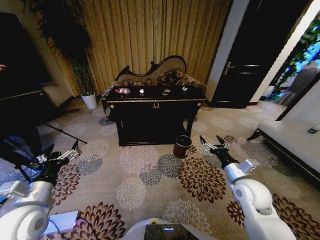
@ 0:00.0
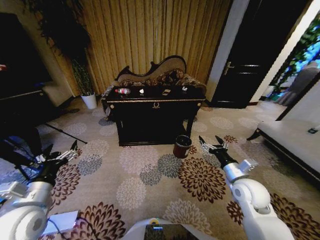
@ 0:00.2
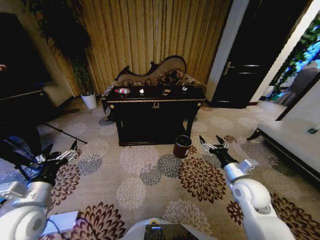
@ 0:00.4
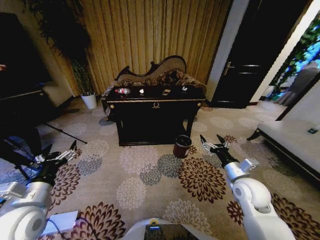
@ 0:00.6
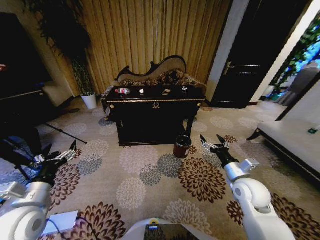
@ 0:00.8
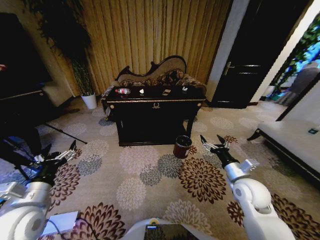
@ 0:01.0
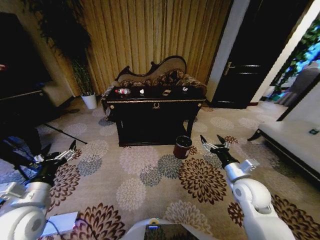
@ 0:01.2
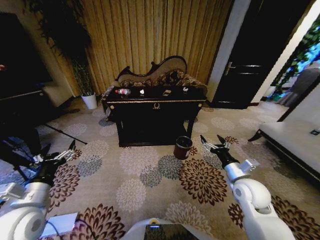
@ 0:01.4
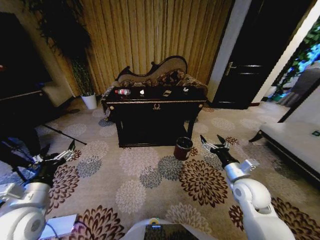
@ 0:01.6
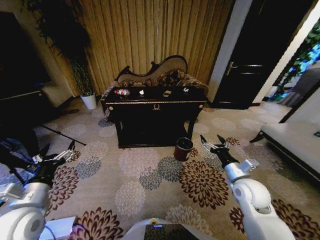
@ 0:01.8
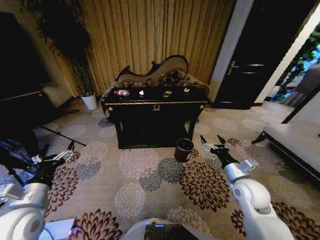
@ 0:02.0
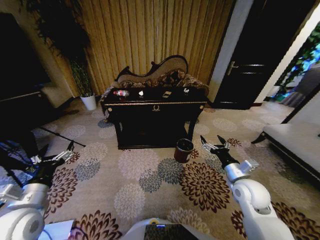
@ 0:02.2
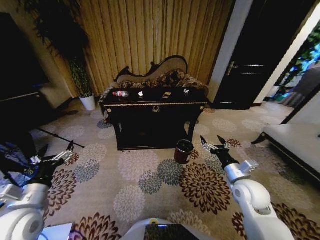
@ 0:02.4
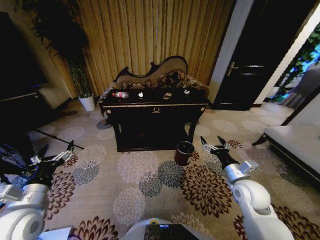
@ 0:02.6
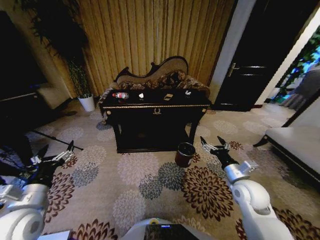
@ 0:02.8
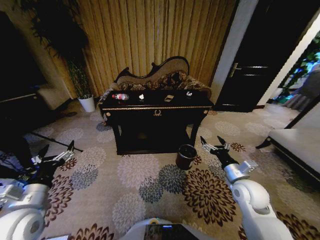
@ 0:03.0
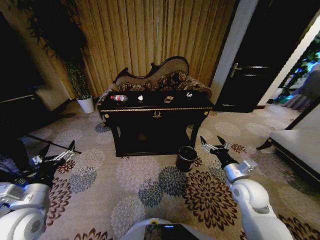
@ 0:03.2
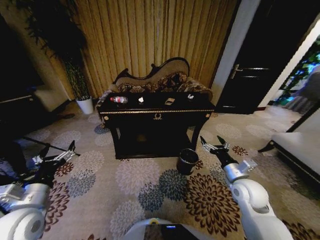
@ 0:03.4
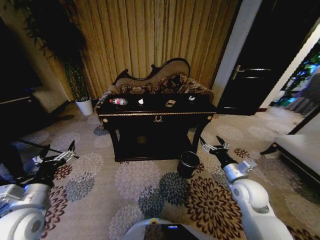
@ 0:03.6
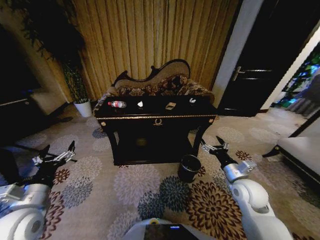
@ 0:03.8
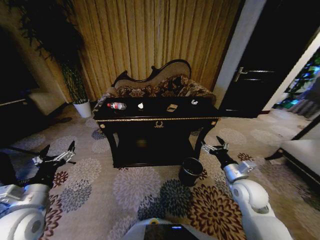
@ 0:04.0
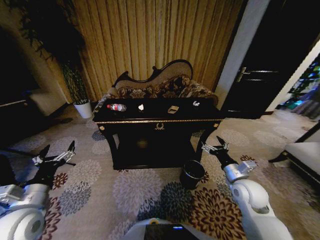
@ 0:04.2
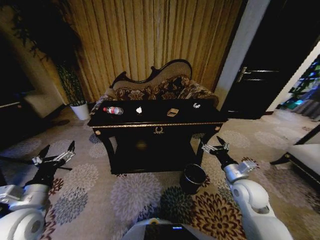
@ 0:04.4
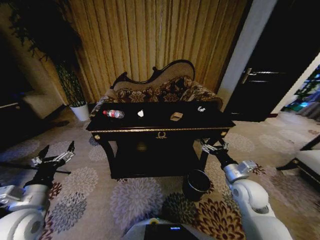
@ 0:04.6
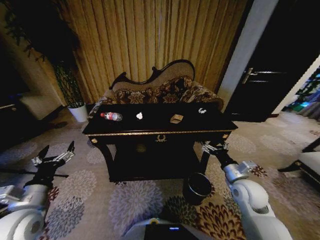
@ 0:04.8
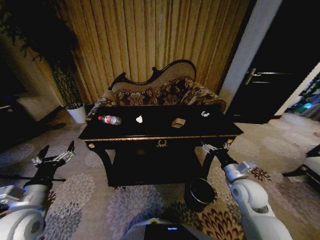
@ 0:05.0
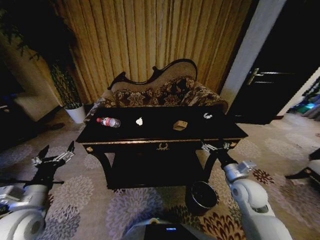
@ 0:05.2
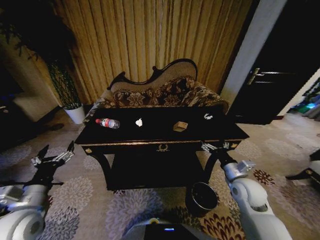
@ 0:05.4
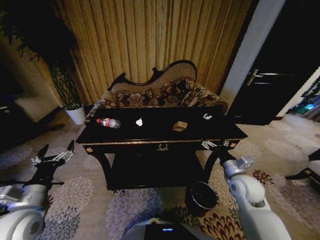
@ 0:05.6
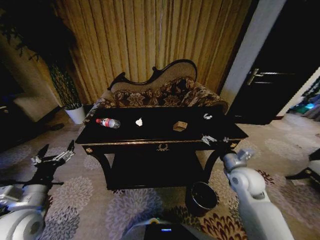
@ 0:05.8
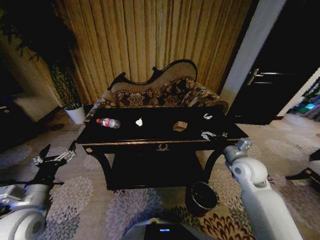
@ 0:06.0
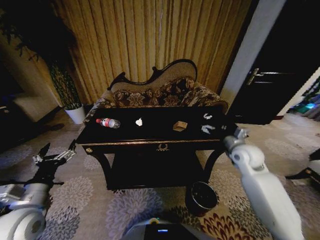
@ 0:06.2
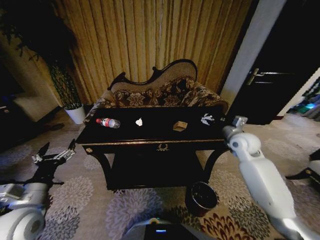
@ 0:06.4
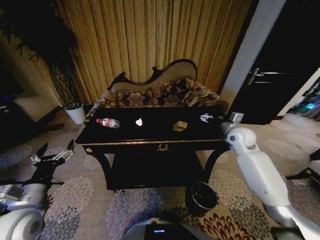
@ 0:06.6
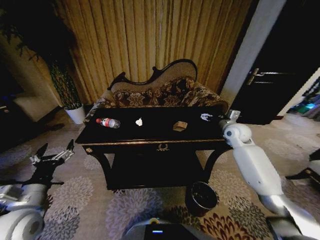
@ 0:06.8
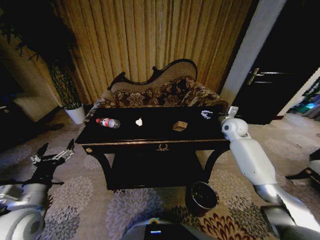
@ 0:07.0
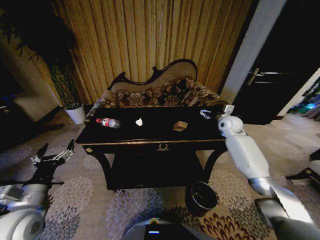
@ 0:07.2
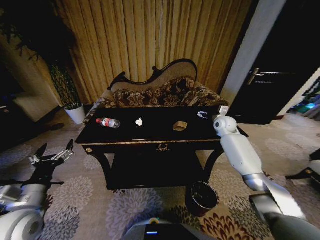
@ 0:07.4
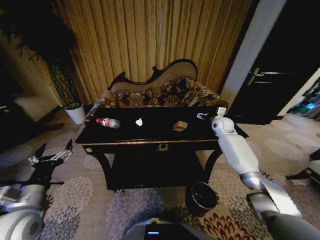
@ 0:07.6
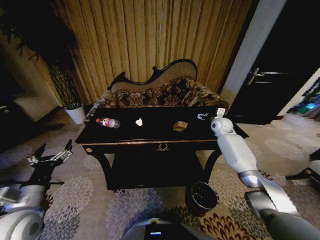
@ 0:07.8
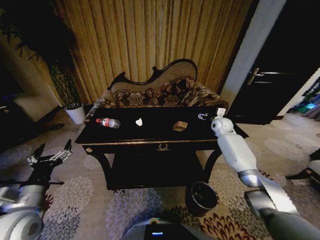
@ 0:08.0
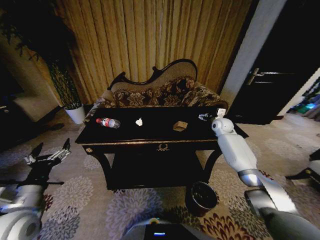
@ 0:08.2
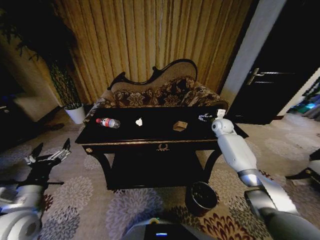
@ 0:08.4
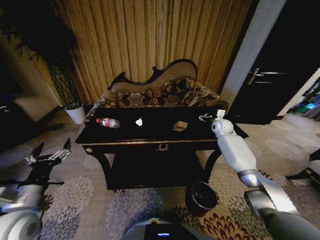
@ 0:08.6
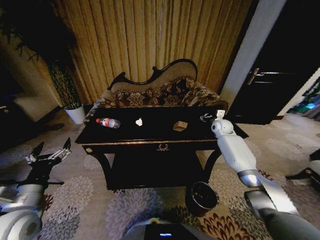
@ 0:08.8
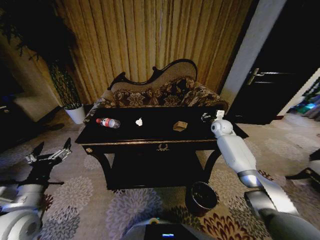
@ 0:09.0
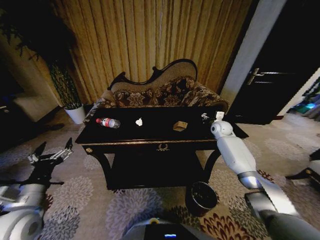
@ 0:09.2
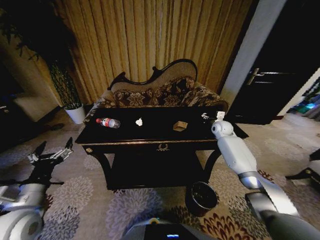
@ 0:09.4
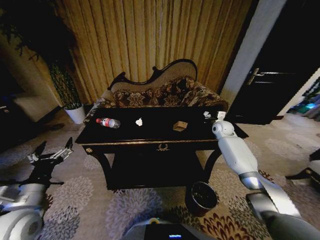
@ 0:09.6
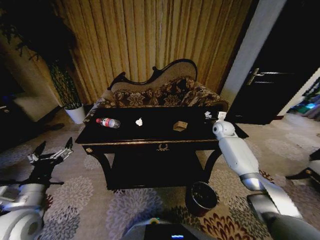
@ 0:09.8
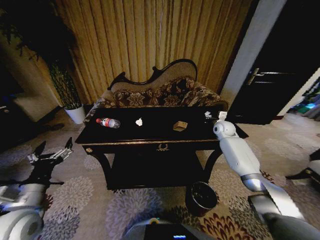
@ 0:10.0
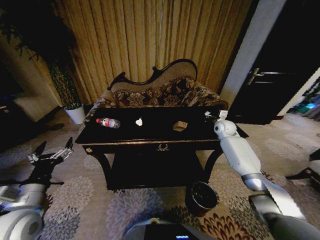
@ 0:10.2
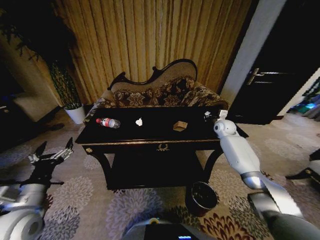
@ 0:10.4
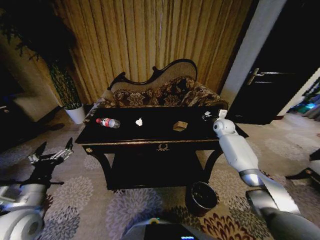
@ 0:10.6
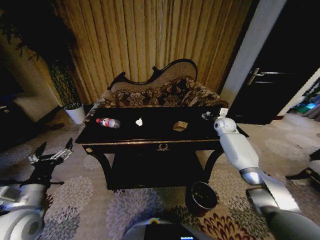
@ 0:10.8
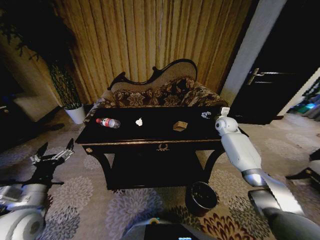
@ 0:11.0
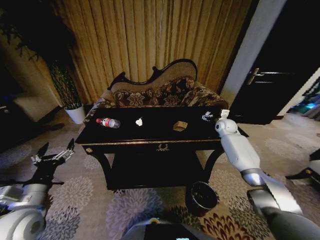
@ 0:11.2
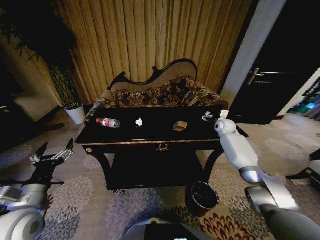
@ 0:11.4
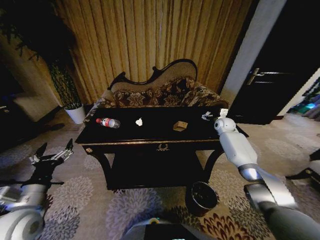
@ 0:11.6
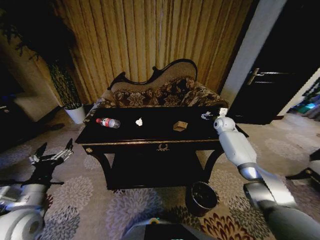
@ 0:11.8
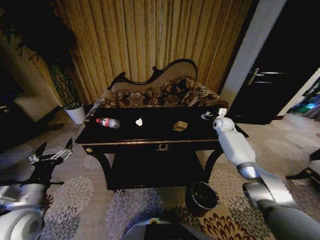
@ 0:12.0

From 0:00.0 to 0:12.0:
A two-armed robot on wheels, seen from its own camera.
Task of the whole recording: Move to the front of the table and place the trash on the table into the trash bin.
From 0:04.4 to 0:06.0: The right gripper is displaced forward and upward by some 10 cm.
From 0:06.0 to 0:07.6: The right gripper shifts some 25 cm forward.
From 0:07.6 to 0:09.0: The right gripper closes.
From 0:09.0 to 0:10.4: The grippers make only small movements.
From 0:10.4 to 0:12.0: The right gripper opens.

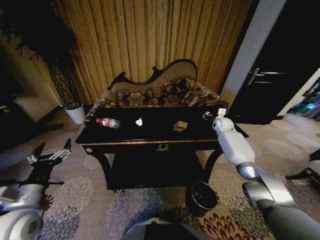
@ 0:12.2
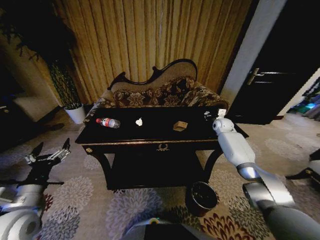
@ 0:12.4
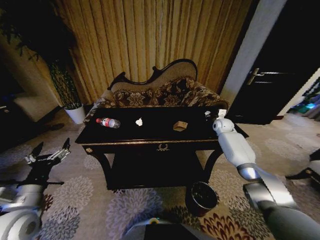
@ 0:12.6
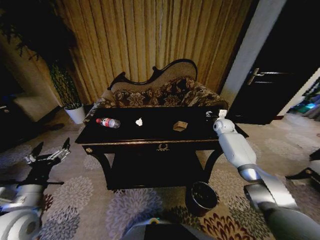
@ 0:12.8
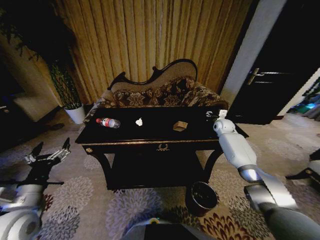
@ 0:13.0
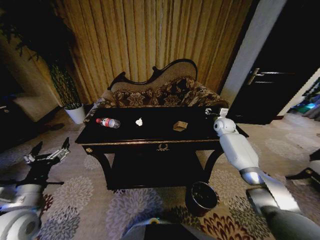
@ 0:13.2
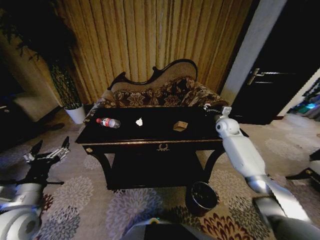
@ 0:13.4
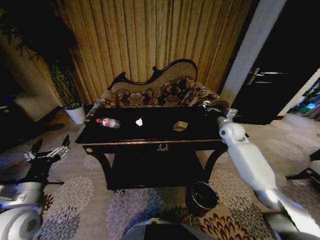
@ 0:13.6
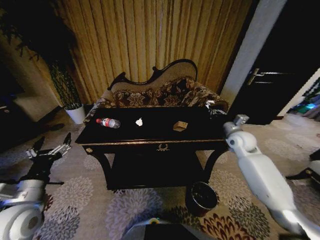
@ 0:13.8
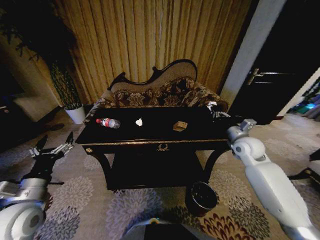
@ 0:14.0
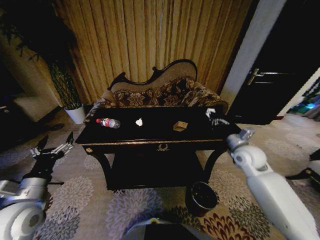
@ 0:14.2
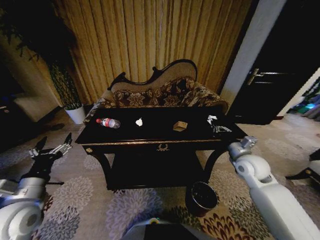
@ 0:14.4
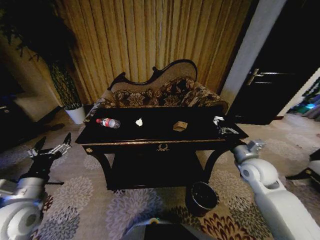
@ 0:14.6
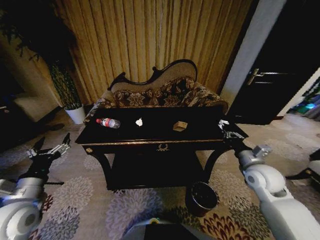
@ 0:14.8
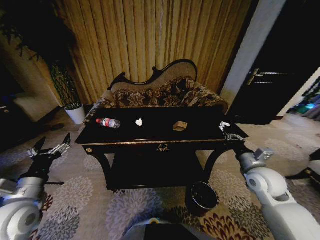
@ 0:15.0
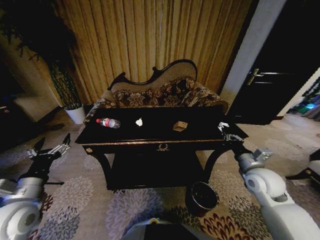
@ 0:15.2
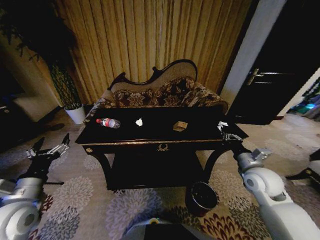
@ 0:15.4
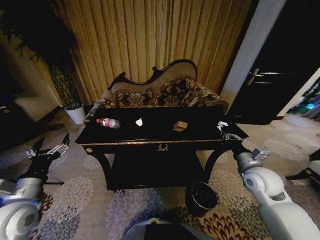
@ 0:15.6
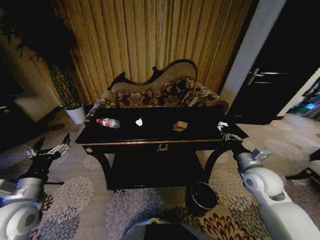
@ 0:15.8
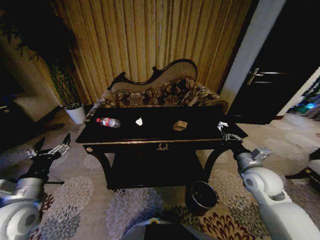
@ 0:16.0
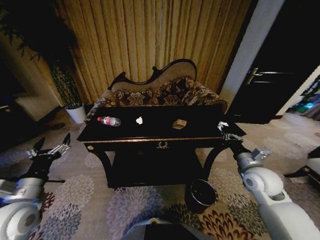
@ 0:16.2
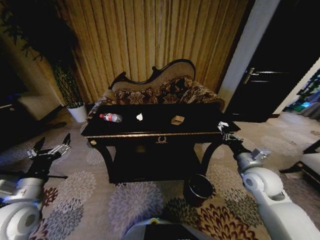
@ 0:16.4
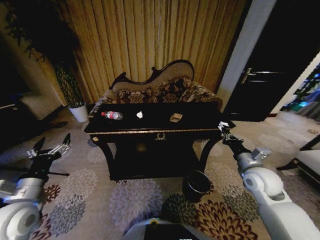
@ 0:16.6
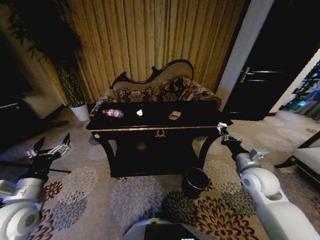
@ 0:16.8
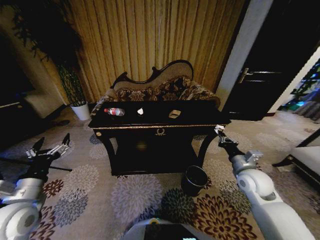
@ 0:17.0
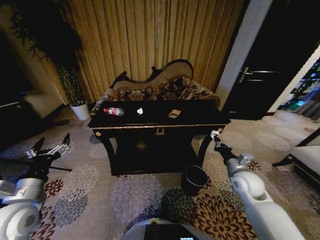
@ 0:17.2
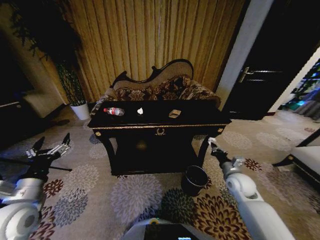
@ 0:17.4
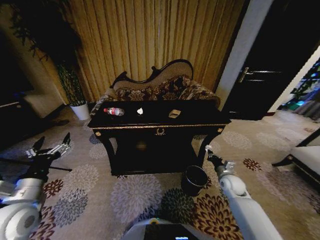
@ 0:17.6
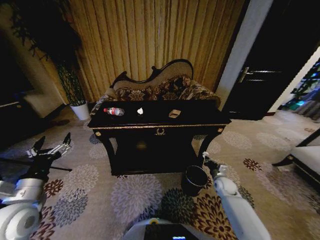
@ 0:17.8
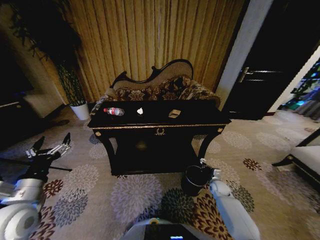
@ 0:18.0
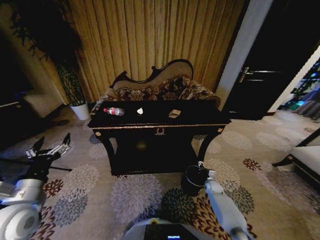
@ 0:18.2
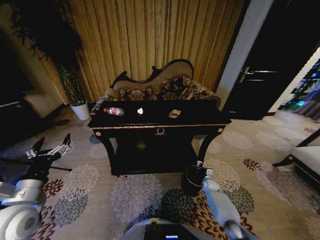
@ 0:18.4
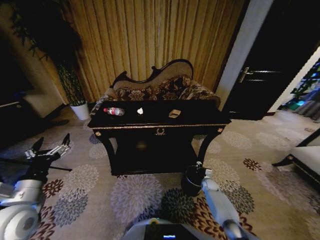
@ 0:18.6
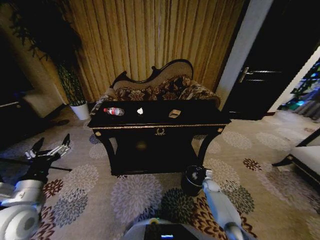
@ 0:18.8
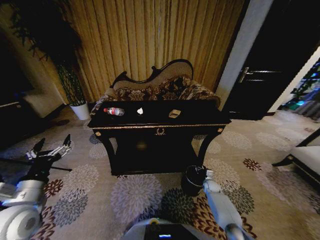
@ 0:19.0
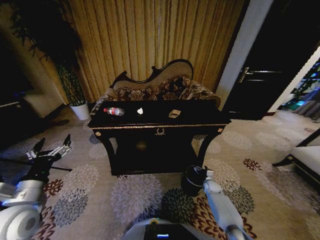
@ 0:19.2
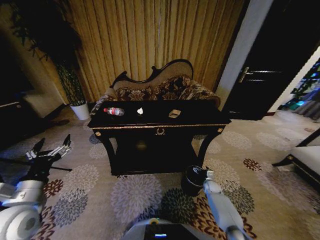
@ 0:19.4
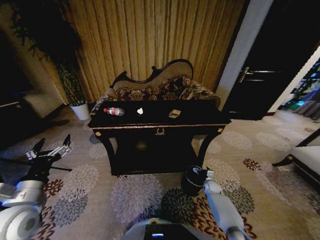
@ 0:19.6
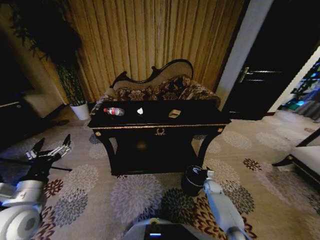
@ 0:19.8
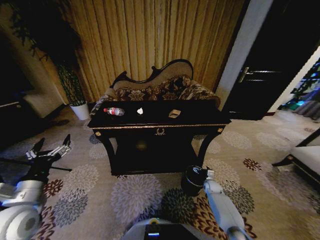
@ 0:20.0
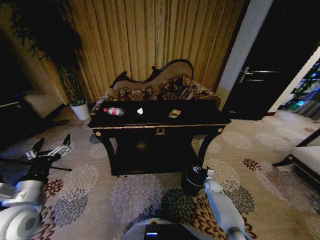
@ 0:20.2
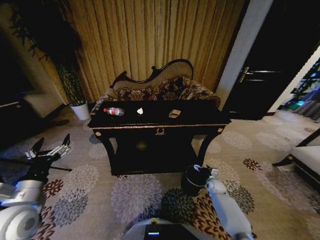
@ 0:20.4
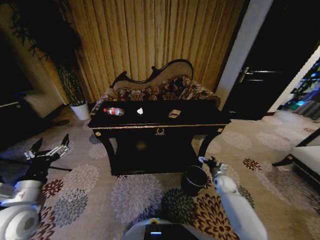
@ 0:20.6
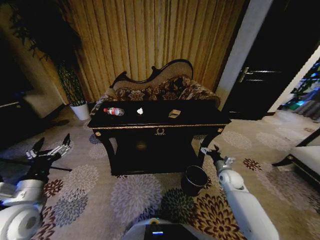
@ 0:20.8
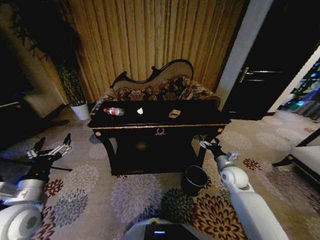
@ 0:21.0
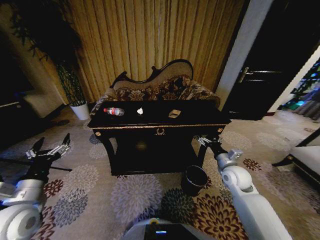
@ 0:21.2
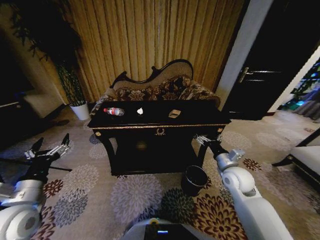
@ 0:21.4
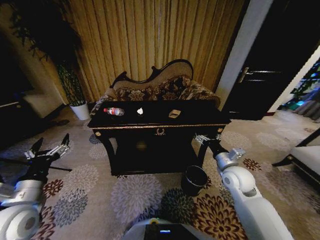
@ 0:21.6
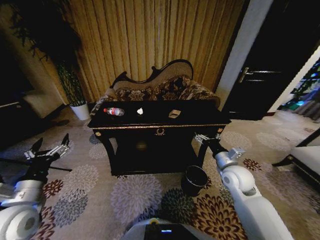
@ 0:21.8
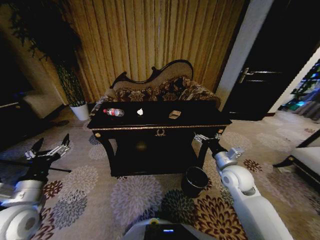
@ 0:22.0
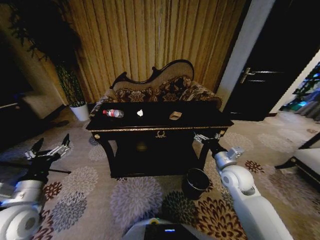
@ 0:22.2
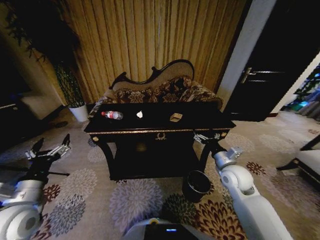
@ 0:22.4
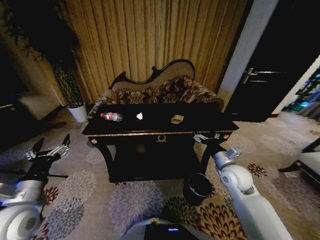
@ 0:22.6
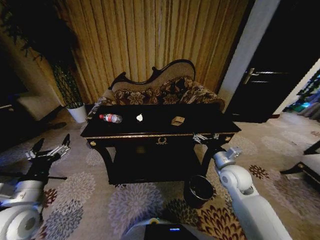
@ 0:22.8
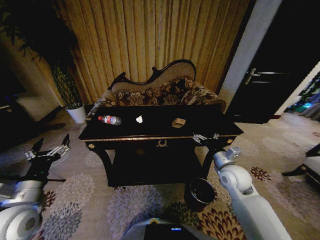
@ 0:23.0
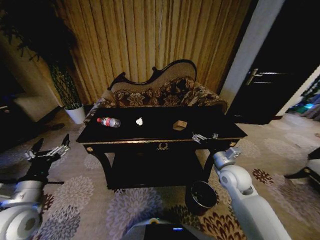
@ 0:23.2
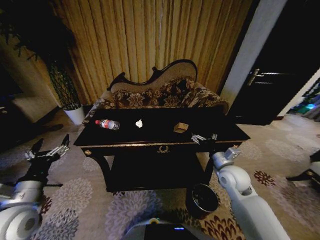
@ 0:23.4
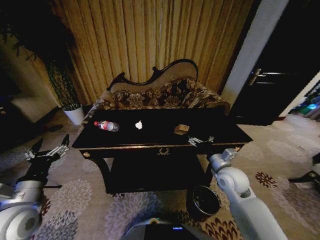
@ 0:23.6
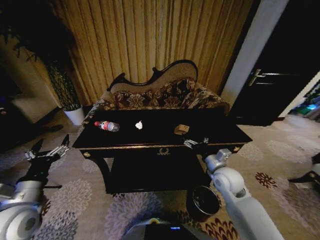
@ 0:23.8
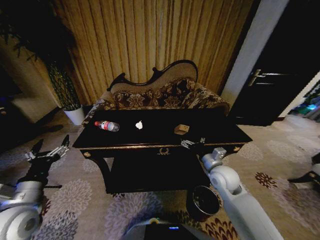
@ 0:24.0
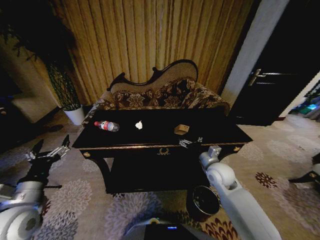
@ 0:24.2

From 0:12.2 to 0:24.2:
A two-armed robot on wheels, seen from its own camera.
Task of the whole recording: Move to the front of the table and place the trash on the table into the trash bin.
From 0:12.2 to 0:13.8: The right gripper is displaced backward by approximately 15 cm, and closes.
From 0:13.8 to 0:15.2: The right gripper shifts roughly 15 cm backward.
From 0:16.6 to 0:18.2: The right gripper heads downward, covering some 35 cm.
From 0:18.2 to 0:19.8: The right gripper opens its fingers.
From 0:19.8 to 0:21.2: The right gripper goes approximately 30 cm upward.
From 0:21.2 to 0:22.6: There are only small adjustments of the grippers.
From 0:22.6 to 0:24.2: The right gripper changes place by approximately 5 cm.
